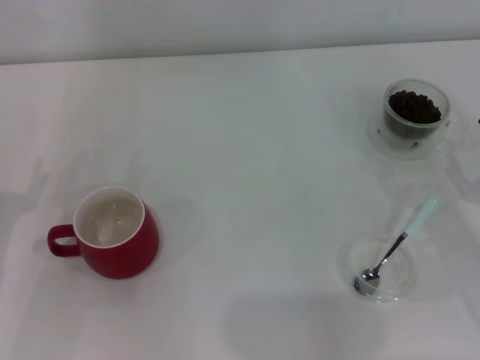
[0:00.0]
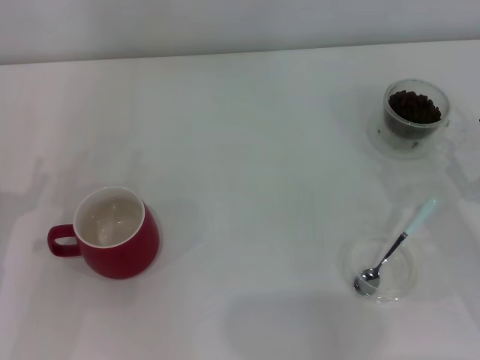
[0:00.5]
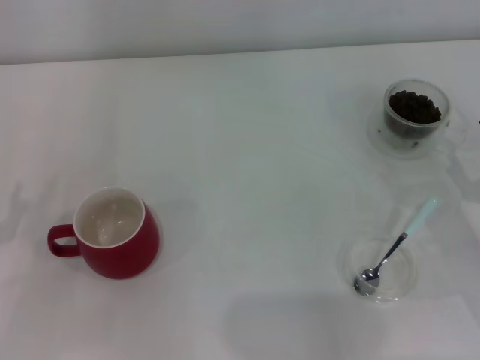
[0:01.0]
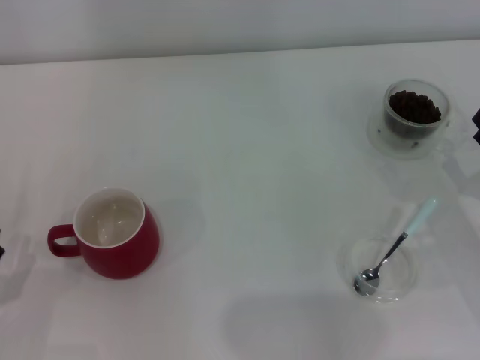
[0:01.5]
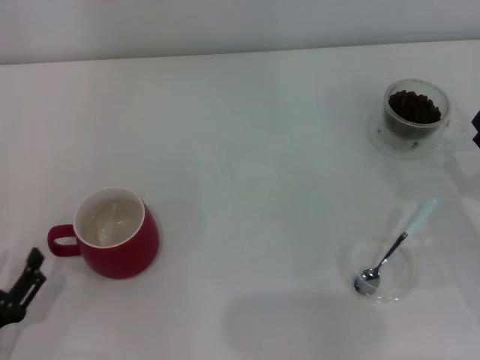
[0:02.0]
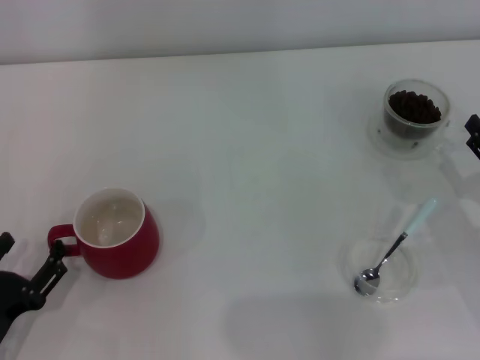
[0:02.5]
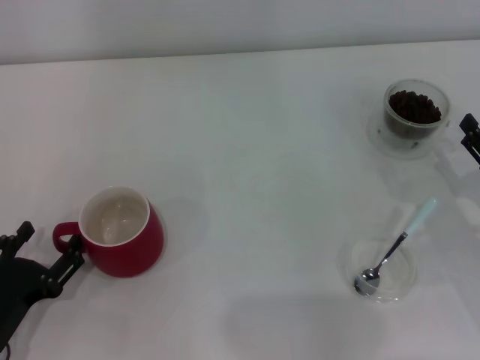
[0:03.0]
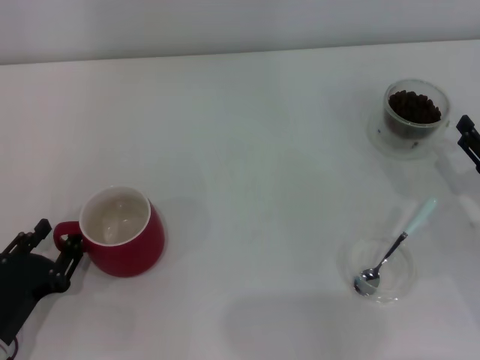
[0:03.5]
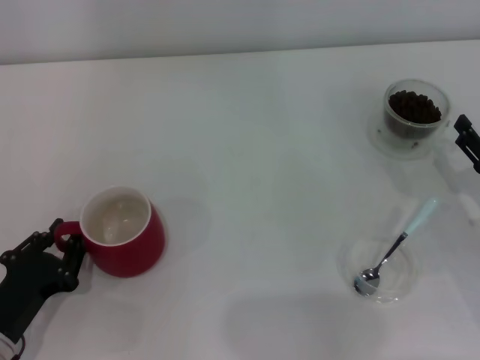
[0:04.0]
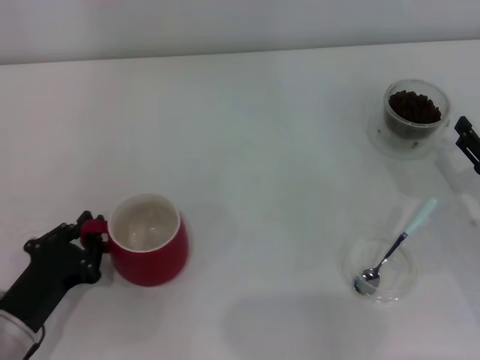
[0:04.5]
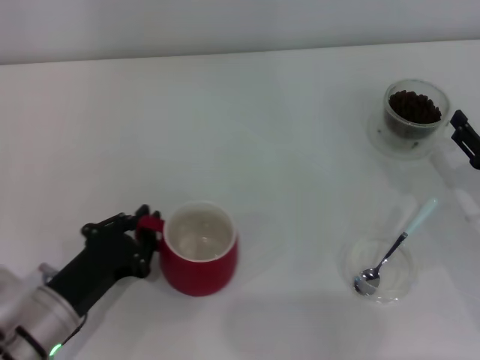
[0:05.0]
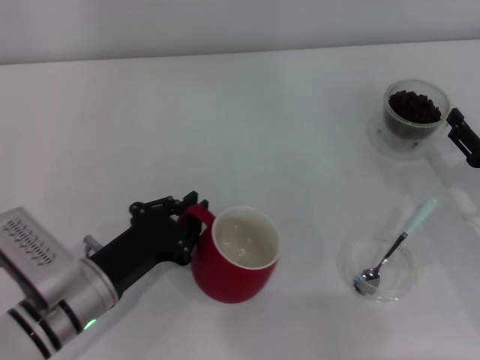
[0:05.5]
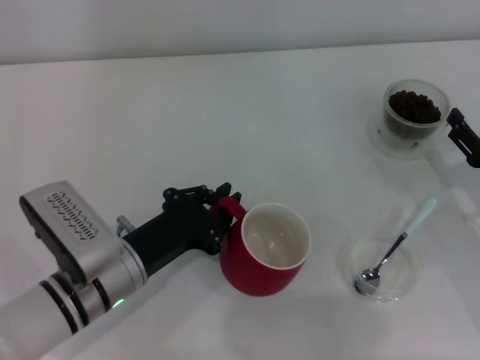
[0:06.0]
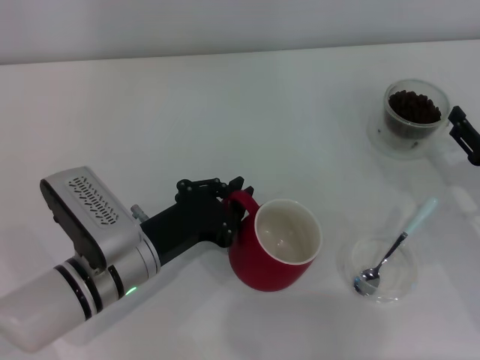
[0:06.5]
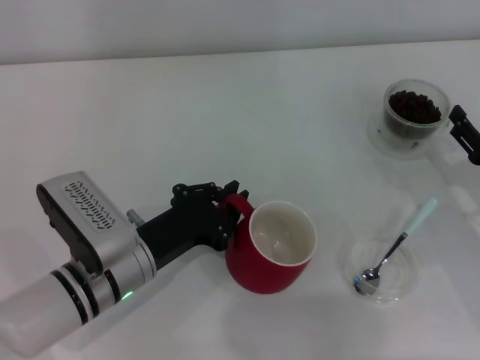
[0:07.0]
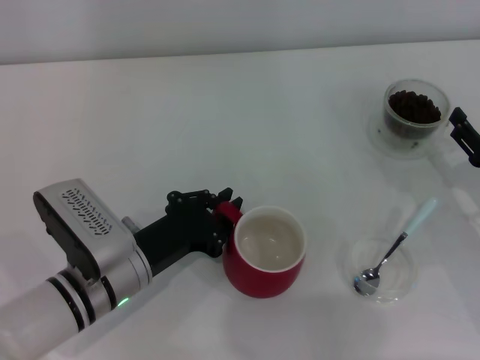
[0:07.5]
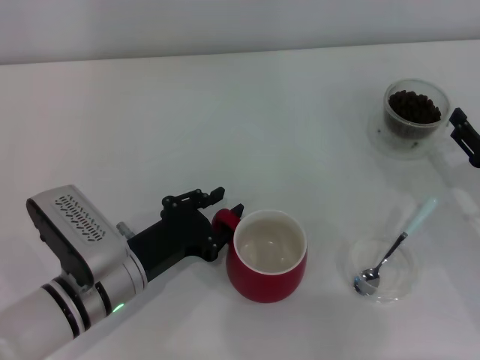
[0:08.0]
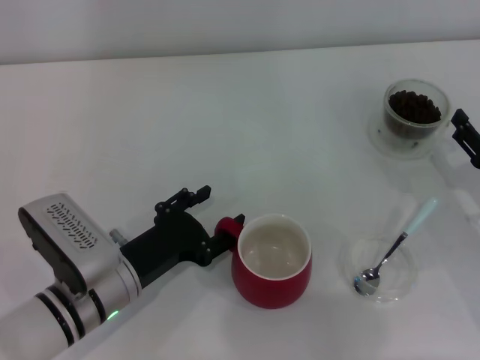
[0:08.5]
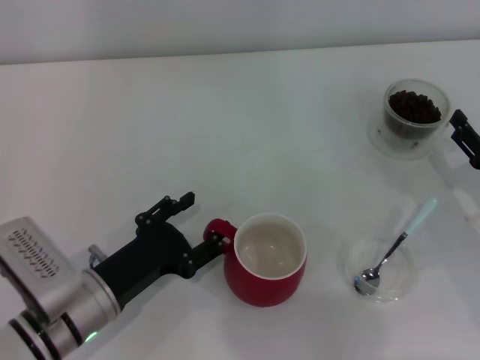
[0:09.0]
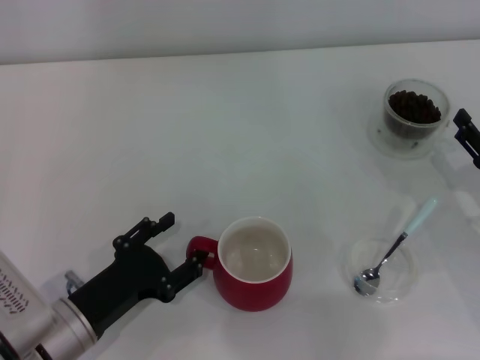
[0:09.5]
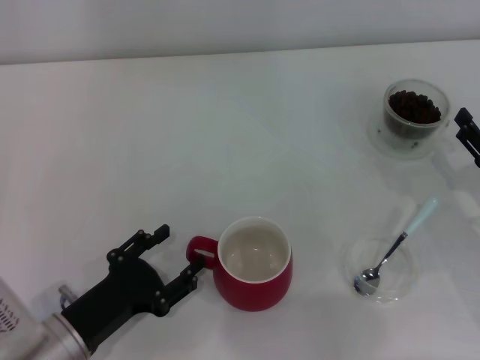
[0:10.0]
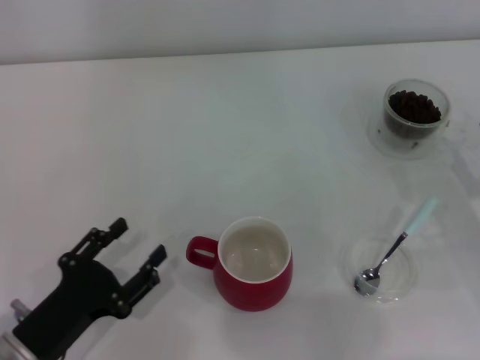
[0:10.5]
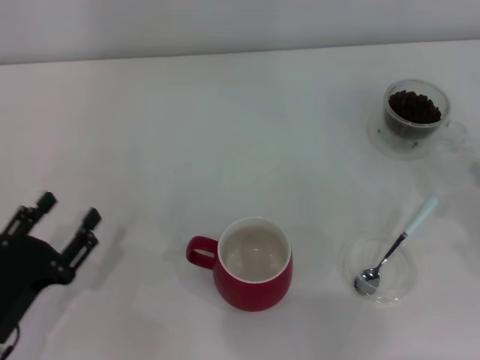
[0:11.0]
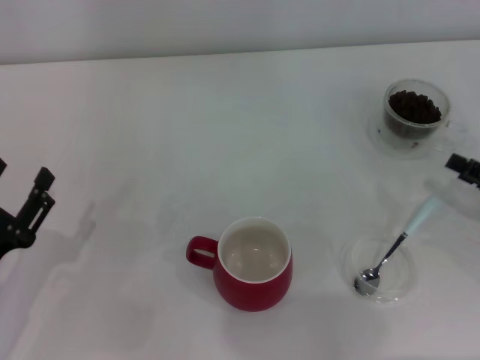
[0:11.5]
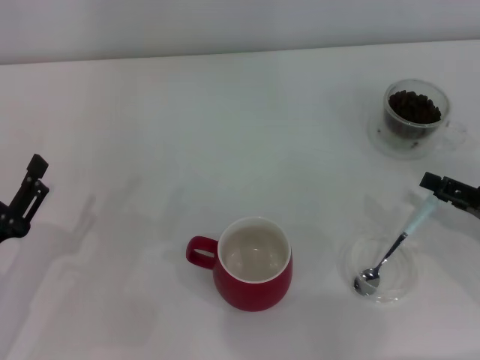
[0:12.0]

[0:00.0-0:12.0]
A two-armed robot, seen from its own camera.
Task of the whole recording: Use a blue spoon to take out the coffee beans from the glass and pour them into the red cup.
Step, 0:00.0 to 0:10.0: Move the cup to the center of view with the left gripper.
0:00.0 to 0:02.0: The left gripper shifts some 10 cm backward and downward.
0:02.0 to 0:04.0: The left gripper shifts by some 5 cm, and closes its fingers.
0:04.0 to 0:06.0: The left gripper heads to the right and forward, covering roughly 15 cm.
0:06.0 to 0:08.0: The grippers move only a little.
0:08.0 to 0:10.0: The left gripper goes about 10 cm backward and to the left, and opens up.
0:10.0 to 0:12.0: The left gripper shifts approximately 10 cm to the left.

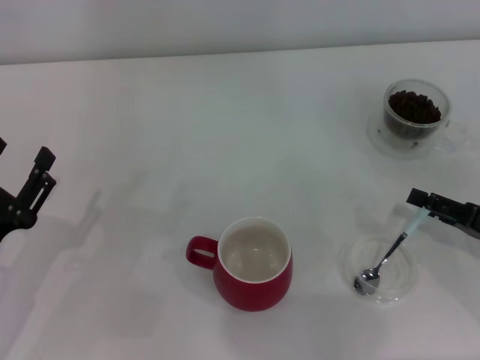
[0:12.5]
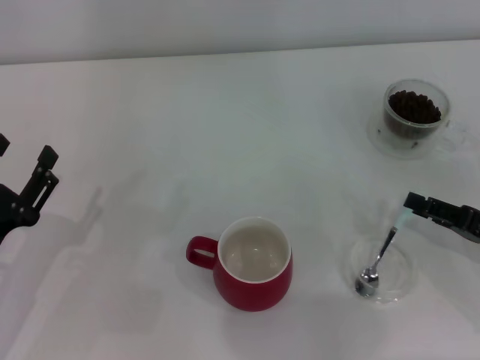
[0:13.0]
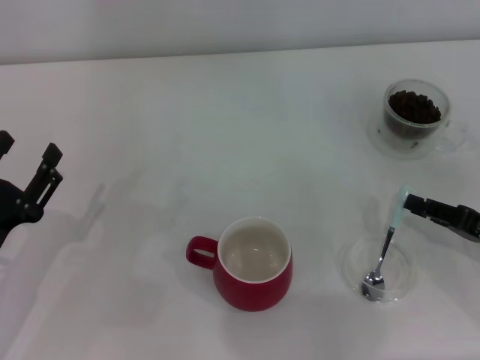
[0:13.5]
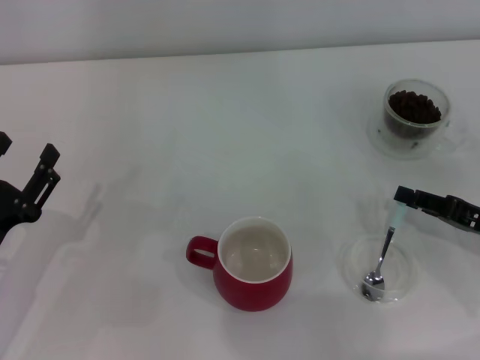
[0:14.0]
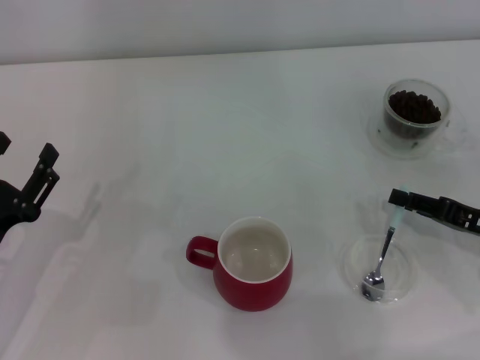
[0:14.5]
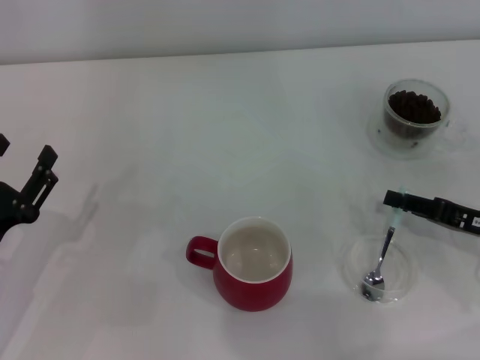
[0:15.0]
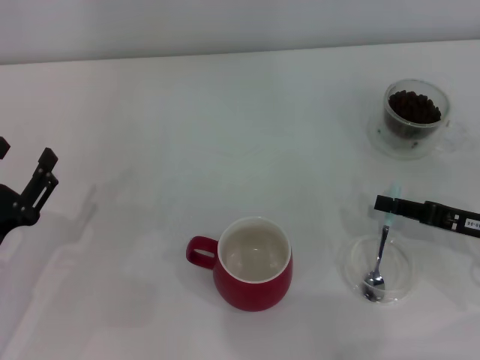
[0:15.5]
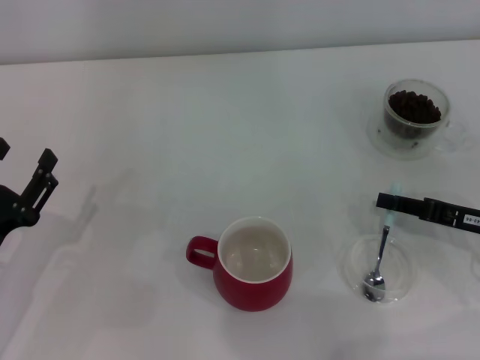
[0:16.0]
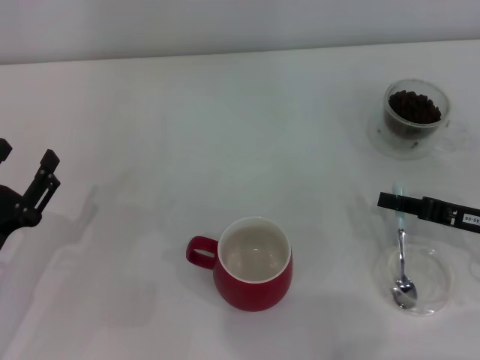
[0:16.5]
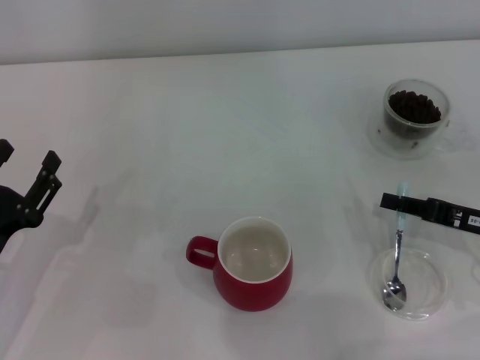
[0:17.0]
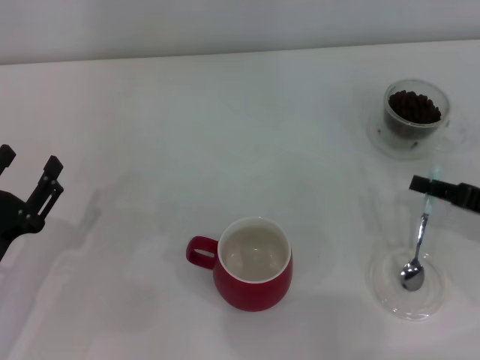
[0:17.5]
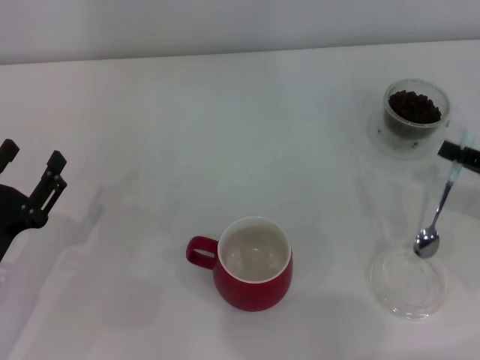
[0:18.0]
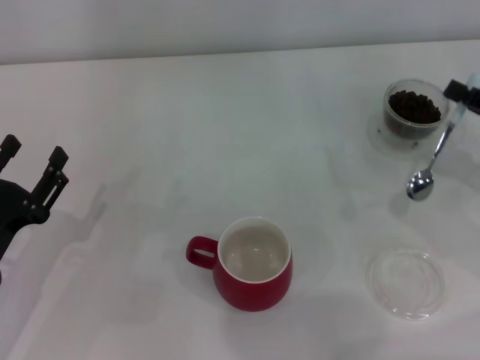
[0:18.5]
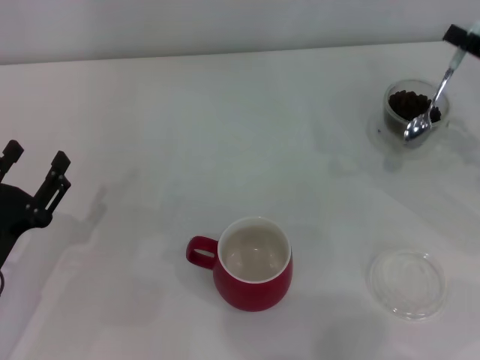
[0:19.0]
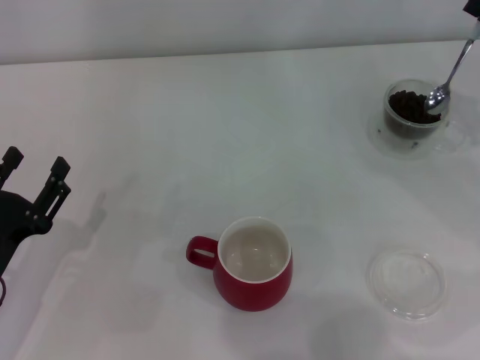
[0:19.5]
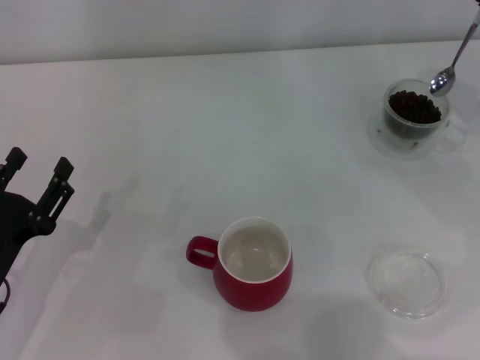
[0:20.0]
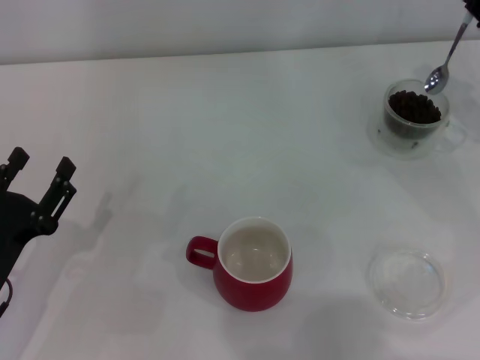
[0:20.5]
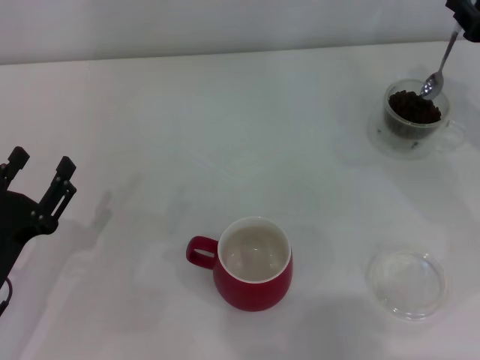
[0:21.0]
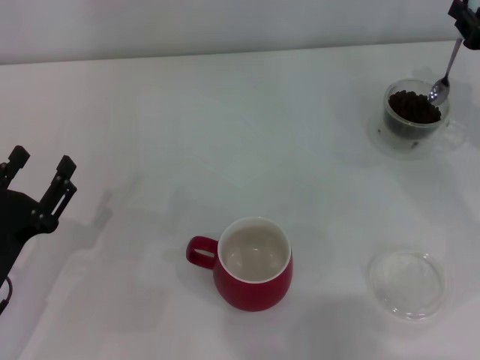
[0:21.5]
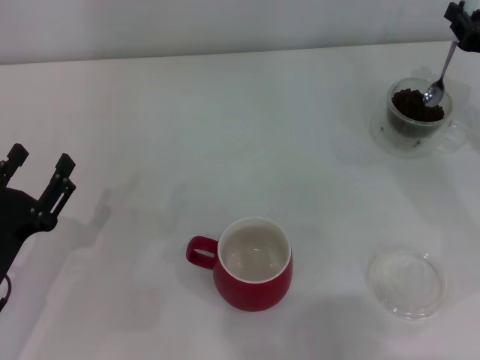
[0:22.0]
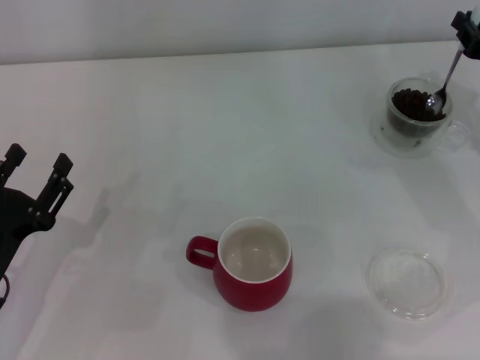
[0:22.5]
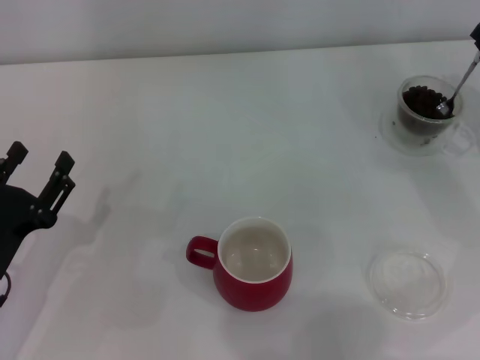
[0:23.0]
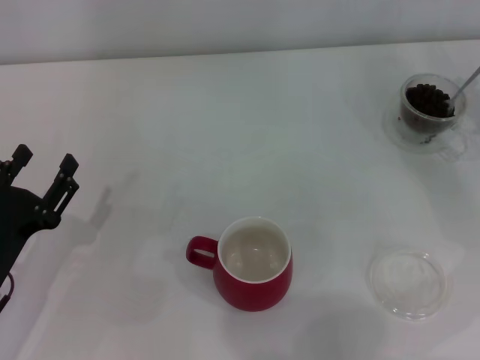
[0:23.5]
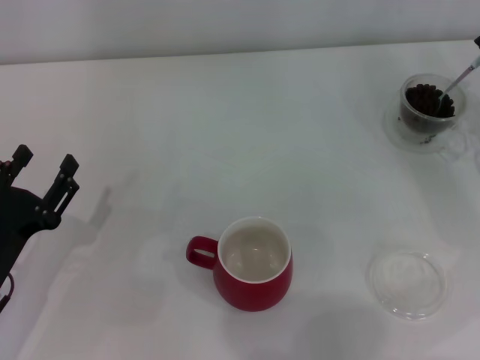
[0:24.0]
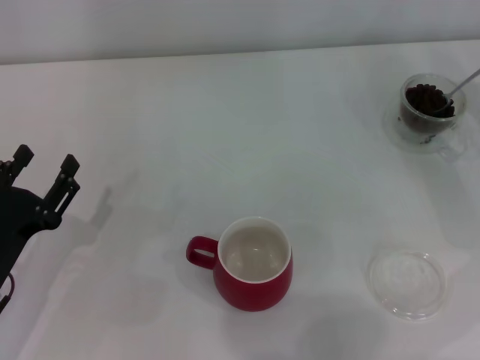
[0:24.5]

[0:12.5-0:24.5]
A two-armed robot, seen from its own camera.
Task of the whole recording: Use a blue spoon to take out the coffee beans from the glass and pour them into the red cup.
Step, 0:12.5 to 0:17.5: Pick up the spoon with the right gripper.
0:12.5 to 0:14.5: The right gripper closes its fingers.
0:14.5 to 0:16.5: There are only small adjustments of the grippers.
0:16.5 to 0:18.5: The right gripper goes about 5 cm upward.
0:18.5 to 0:20.5: The right gripper heads forward, covering roughly 10 cm.
0:20.5 to 0:22.5: The grippers move only a little.

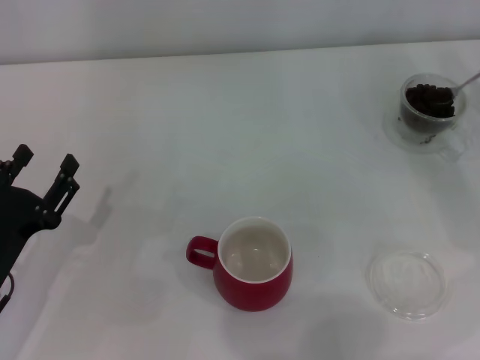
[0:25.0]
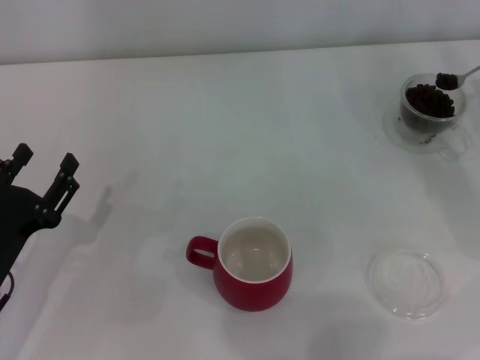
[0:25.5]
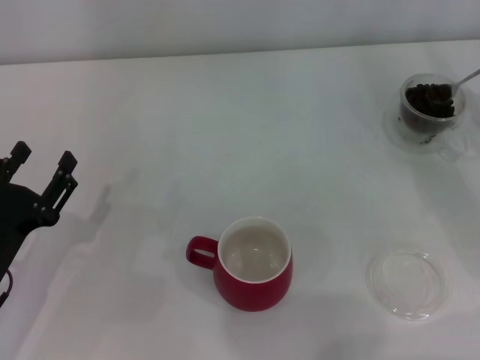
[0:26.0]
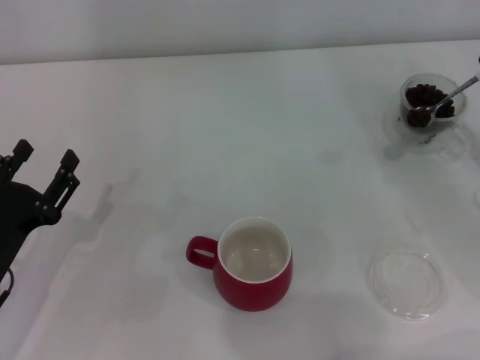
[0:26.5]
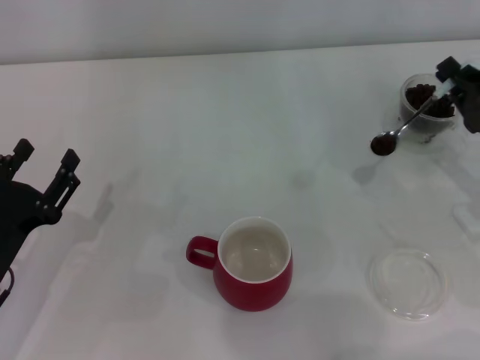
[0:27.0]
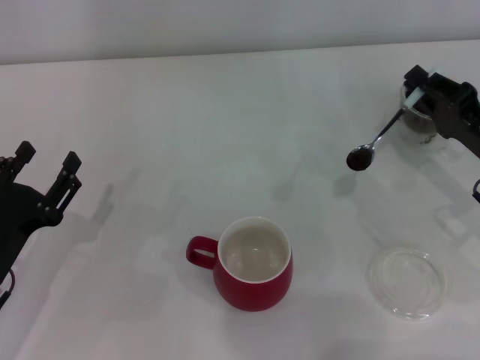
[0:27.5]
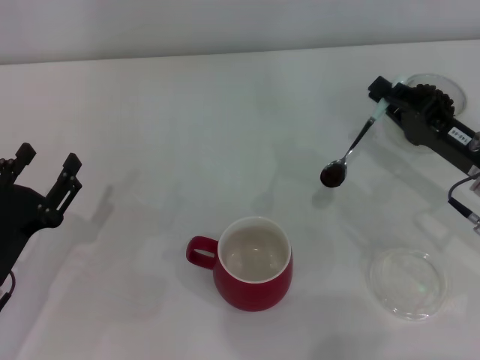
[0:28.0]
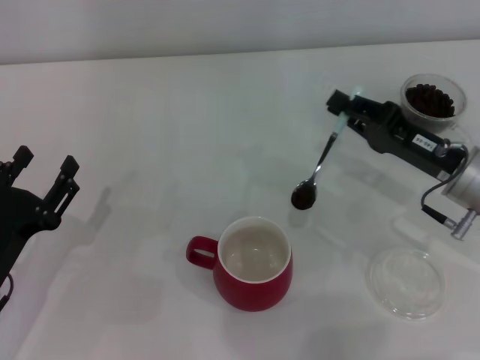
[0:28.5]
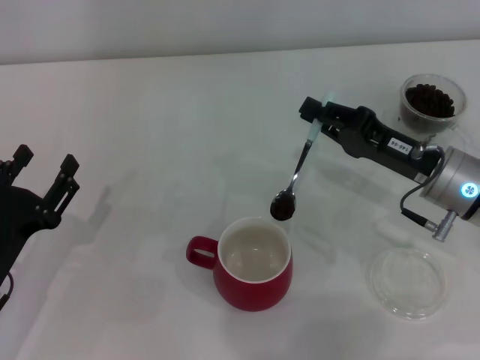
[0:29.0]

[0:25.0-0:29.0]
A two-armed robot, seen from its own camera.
Task of the whole recording: Use a blue spoon to take out the coffee beans from the glass and pour them into the red cup.
0:25.0 to 0:27.0: The right gripper heads backward and to the left, covering about 10 cm.
0:27.0 to 0:29.0: The right gripper is displaced to the left by approximately 10 cm.
